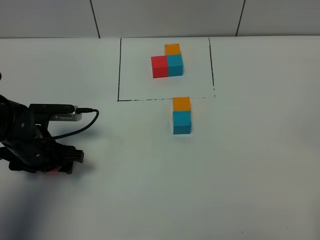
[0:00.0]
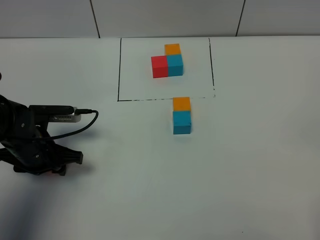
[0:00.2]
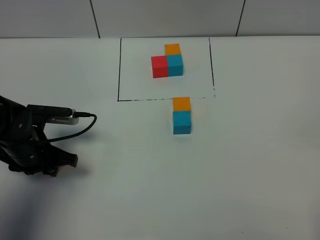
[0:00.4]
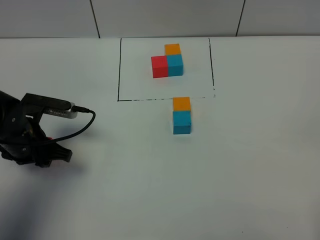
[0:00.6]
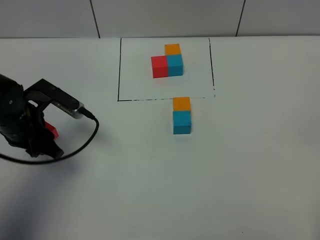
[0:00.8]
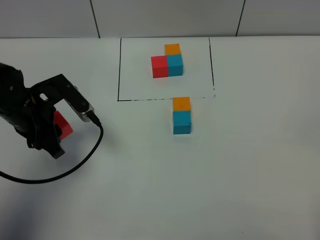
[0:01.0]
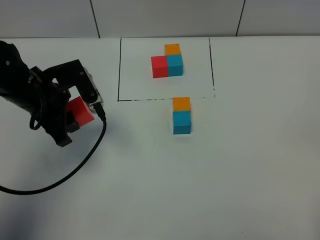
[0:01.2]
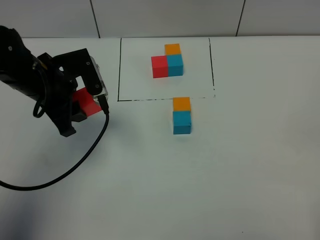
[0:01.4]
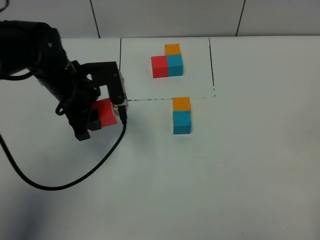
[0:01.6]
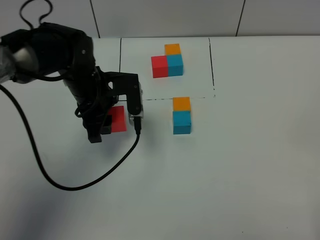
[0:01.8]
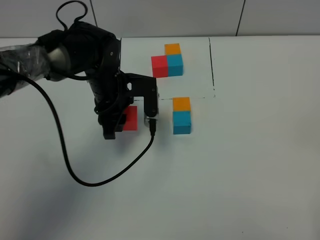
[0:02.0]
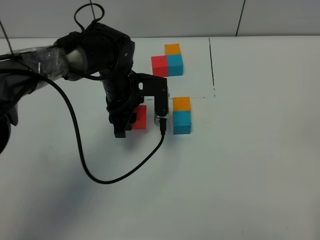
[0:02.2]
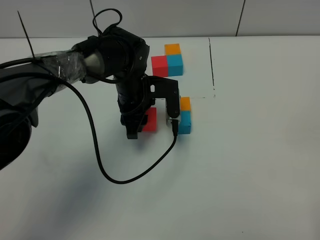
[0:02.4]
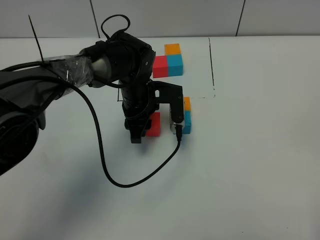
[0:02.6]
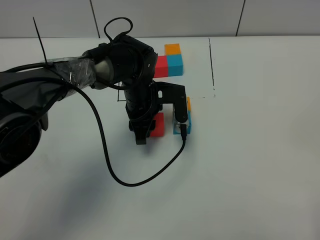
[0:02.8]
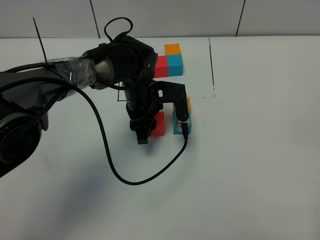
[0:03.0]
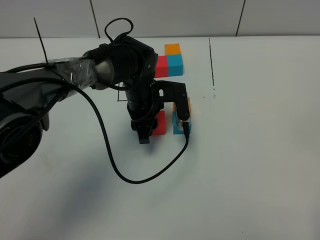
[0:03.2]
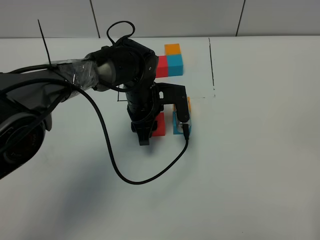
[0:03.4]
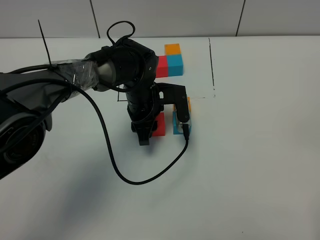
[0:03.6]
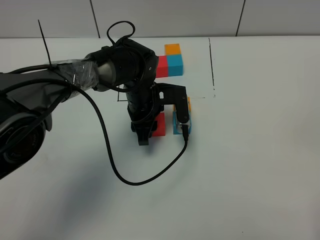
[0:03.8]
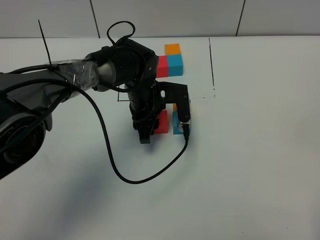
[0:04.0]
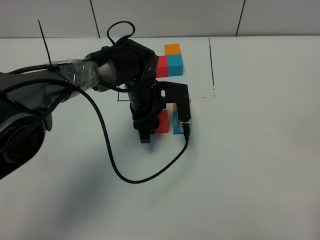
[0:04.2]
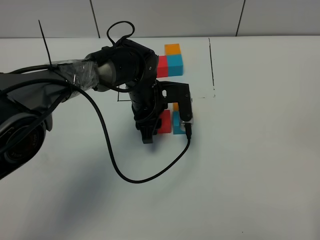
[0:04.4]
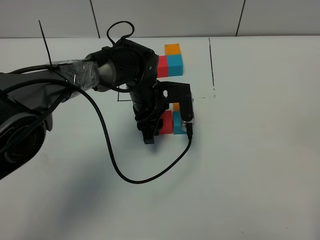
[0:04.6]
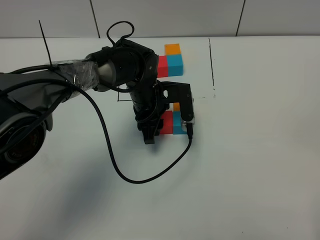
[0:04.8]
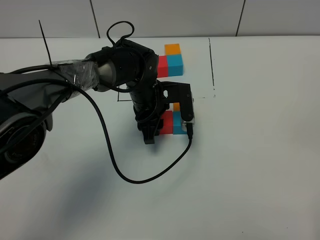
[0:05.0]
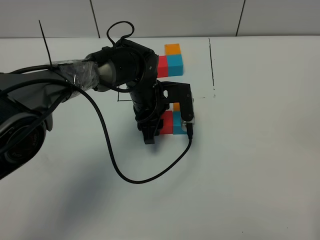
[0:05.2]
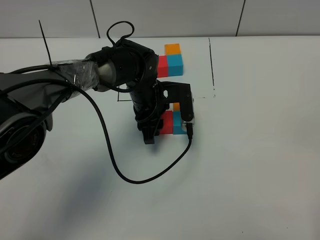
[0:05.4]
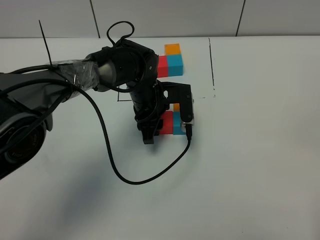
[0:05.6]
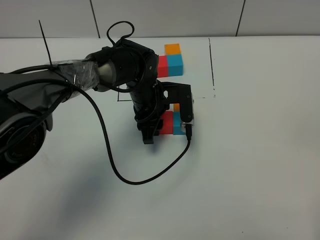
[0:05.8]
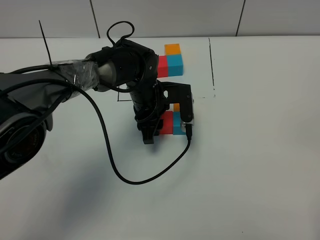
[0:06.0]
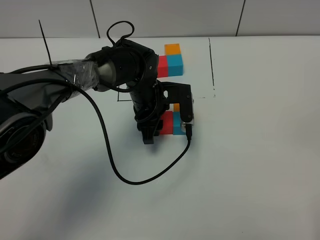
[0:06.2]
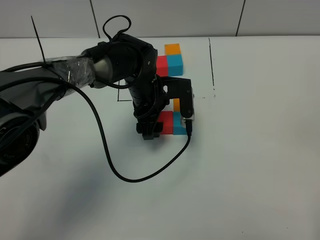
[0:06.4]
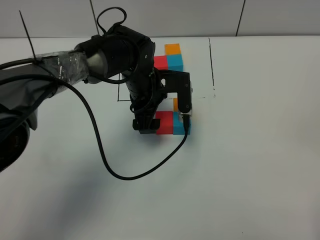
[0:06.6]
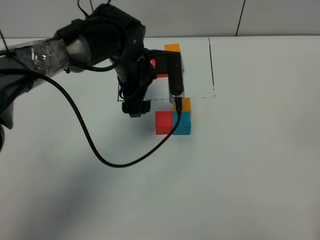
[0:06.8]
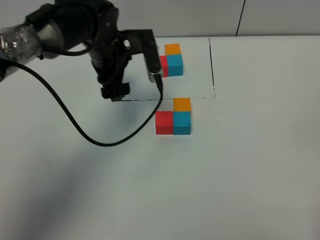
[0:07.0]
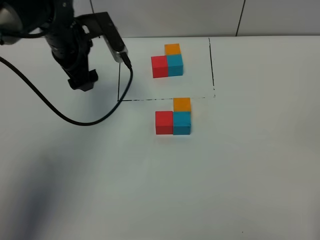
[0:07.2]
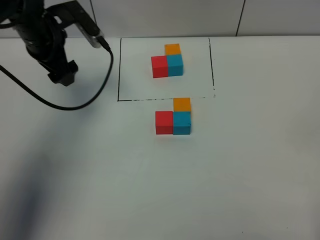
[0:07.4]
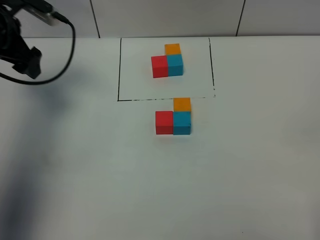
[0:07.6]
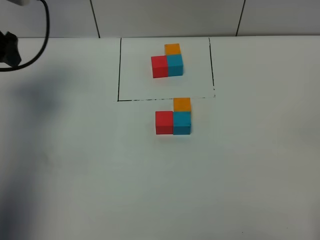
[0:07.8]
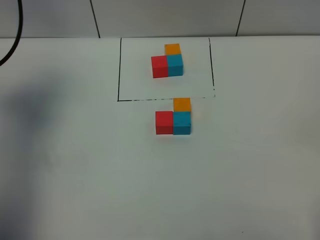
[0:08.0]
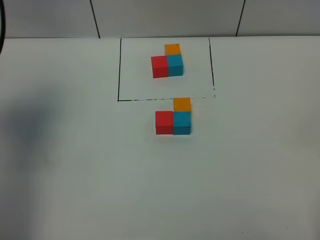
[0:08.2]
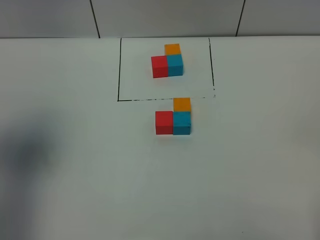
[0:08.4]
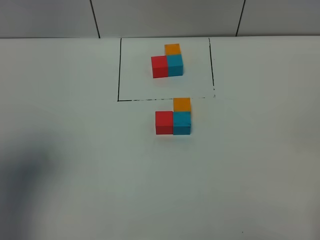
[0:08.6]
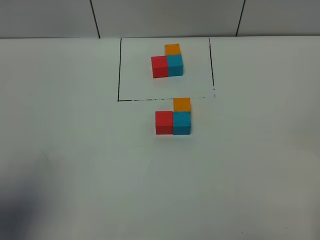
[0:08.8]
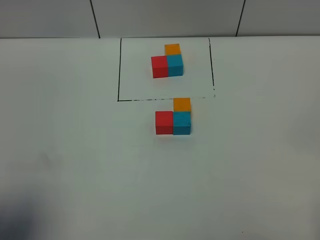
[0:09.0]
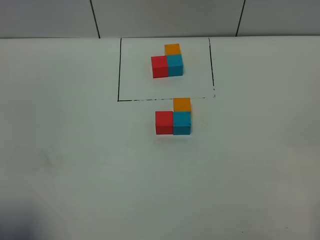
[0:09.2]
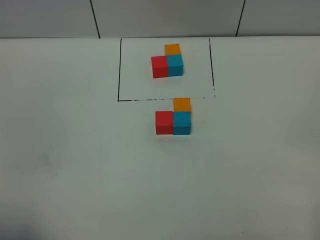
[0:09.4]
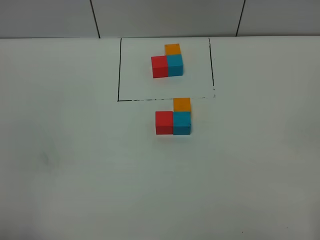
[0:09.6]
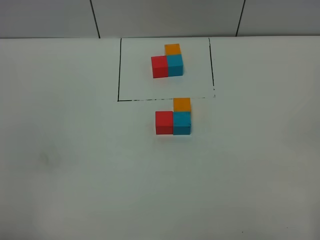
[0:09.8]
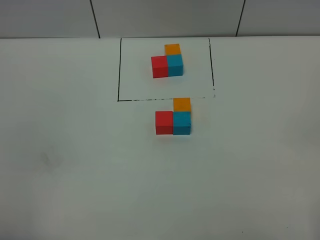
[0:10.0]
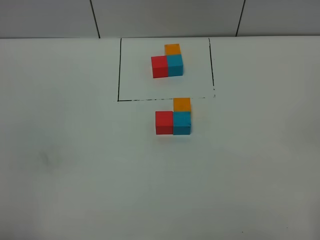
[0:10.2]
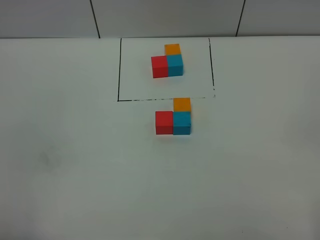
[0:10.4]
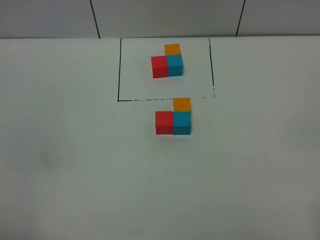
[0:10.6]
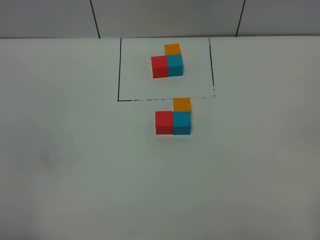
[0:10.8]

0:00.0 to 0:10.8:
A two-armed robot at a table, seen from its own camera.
Task of the whole recording: According to the building block template in front, assemble the scattered blocks together.
Step, 0:00.0 to 0:06.2: Put the red build block on the left of the blue build block.
0:00.0 to 0:01.6: The left gripper goes about 15 cm to the right, forward and upward, and closes up.
0:01.6 to 0:03.0: The left gripper moves to the right and downward, roughly 15 cm.
0:03.0 to 0:04.6: Both grippers stay put.
0:04.6 to 0:06.2: Both grippers stay about where they are.
0:06.2 to 0:07.8: The left gripper travels to the left and upward by approximately 35 cm, and opens its fingers.
0:07.8 to 0:09.2: The left gripper travels backward by roughly 35 cm.
0:09.2 to 0:10.8: The left gripper changes place by roughly 5 cm.

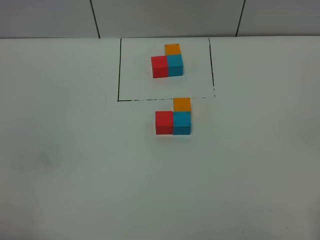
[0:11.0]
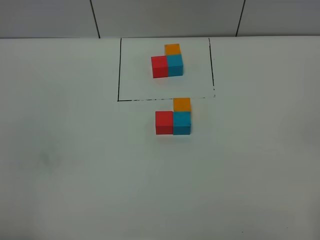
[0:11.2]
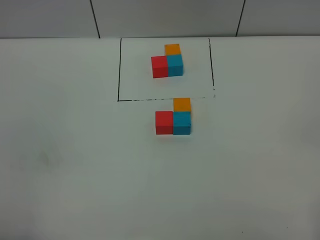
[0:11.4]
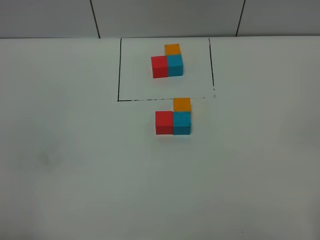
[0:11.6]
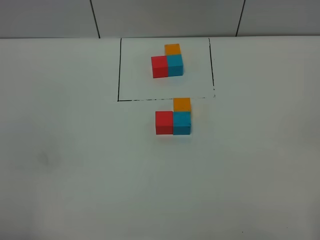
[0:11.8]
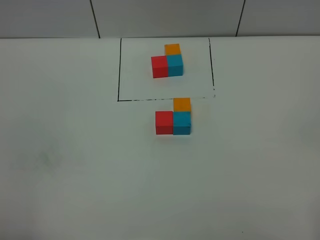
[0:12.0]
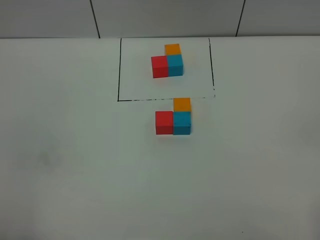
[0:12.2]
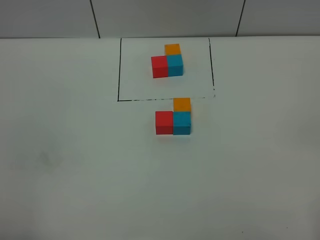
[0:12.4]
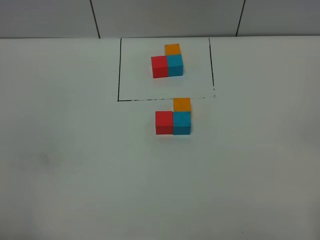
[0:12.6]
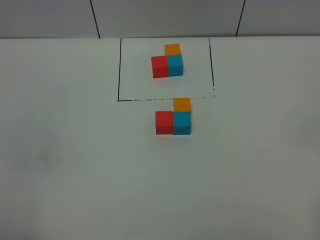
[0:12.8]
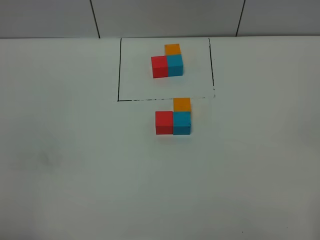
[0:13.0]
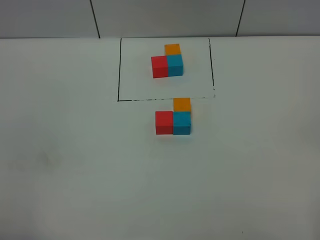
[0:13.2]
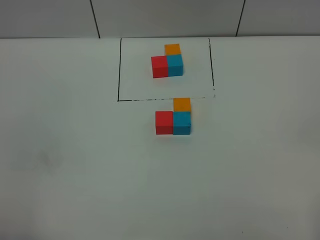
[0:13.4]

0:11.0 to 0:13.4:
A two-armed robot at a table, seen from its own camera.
Task of the whole recording: According to the building block template in front, assemble the scattered blocks together.
0:11.0 to 0:13.4: Neither gripper changes place.

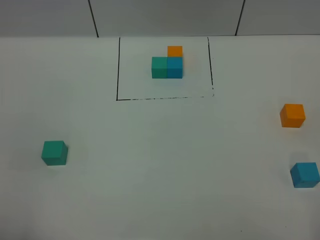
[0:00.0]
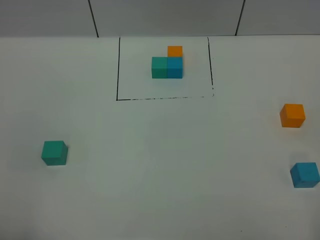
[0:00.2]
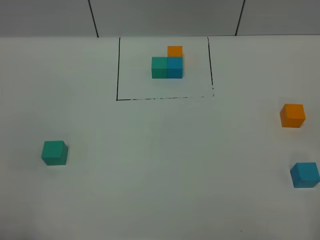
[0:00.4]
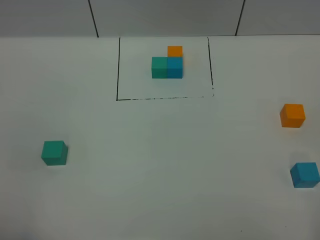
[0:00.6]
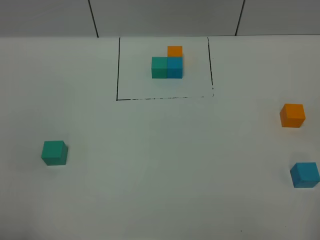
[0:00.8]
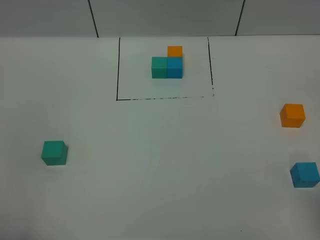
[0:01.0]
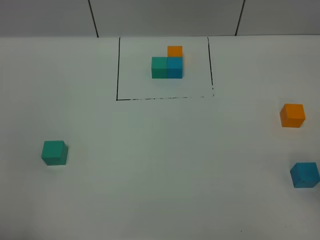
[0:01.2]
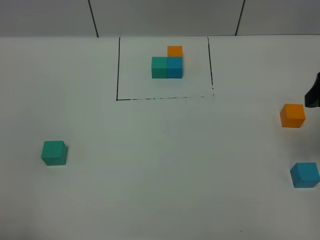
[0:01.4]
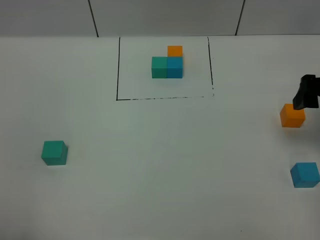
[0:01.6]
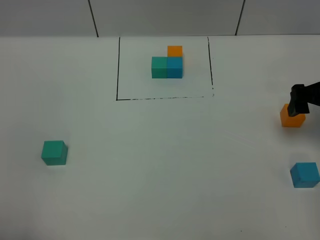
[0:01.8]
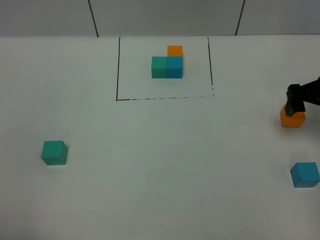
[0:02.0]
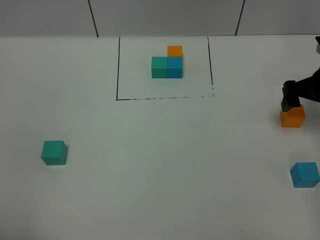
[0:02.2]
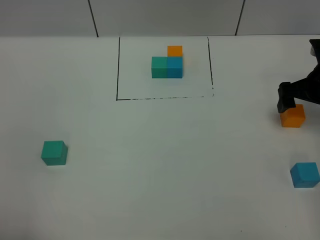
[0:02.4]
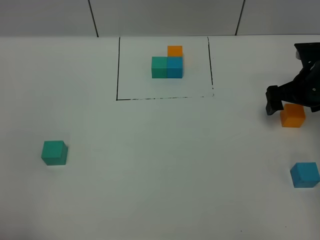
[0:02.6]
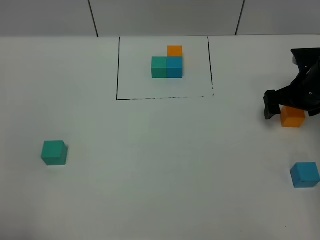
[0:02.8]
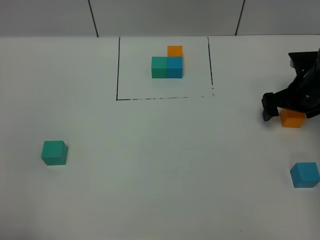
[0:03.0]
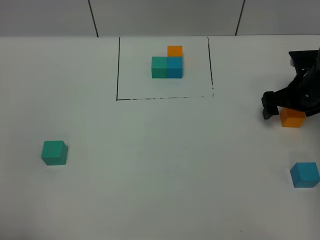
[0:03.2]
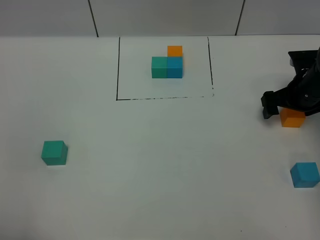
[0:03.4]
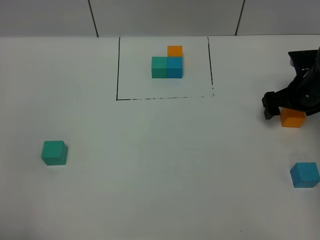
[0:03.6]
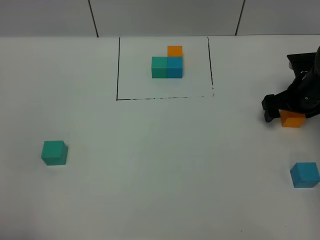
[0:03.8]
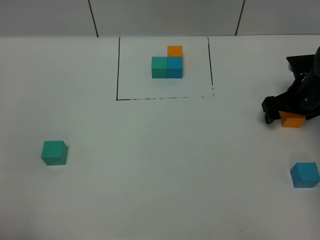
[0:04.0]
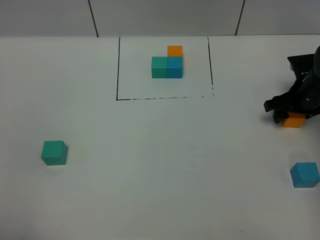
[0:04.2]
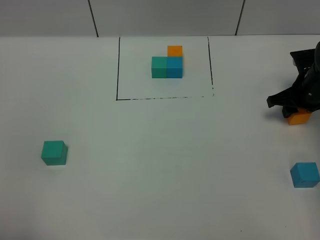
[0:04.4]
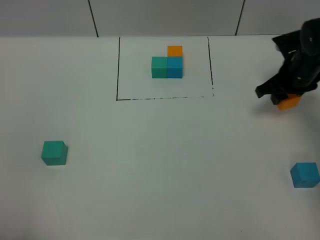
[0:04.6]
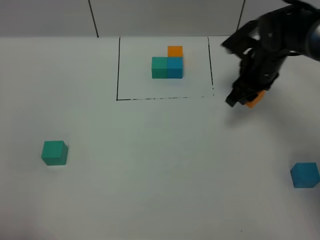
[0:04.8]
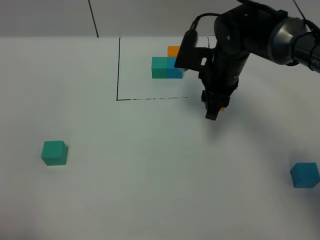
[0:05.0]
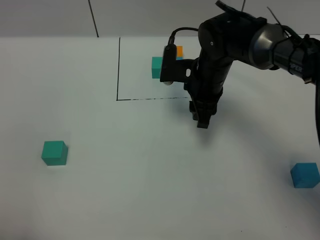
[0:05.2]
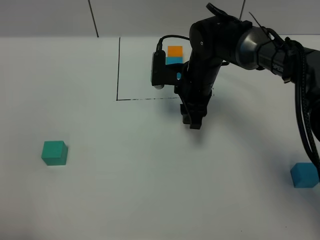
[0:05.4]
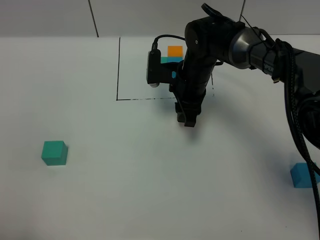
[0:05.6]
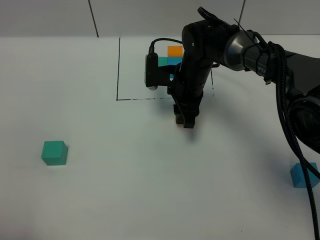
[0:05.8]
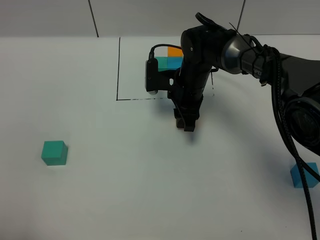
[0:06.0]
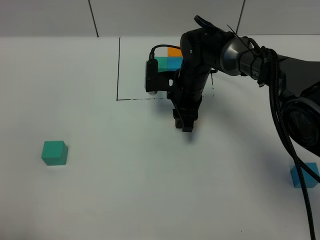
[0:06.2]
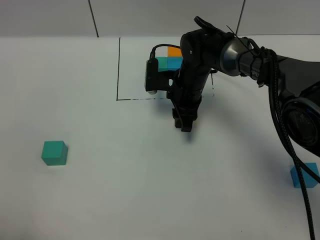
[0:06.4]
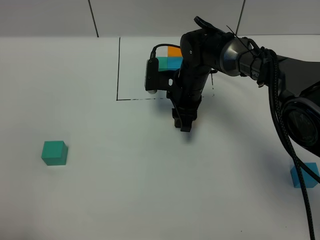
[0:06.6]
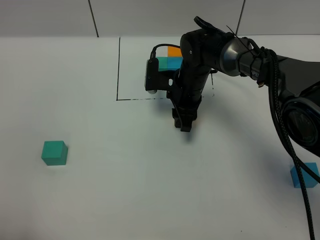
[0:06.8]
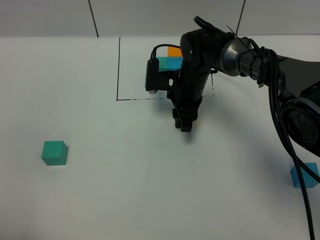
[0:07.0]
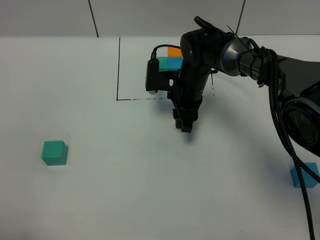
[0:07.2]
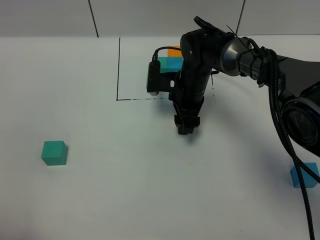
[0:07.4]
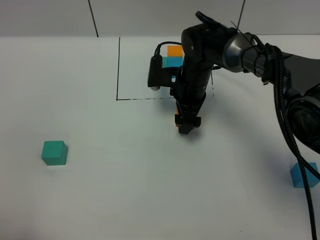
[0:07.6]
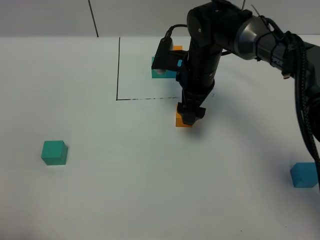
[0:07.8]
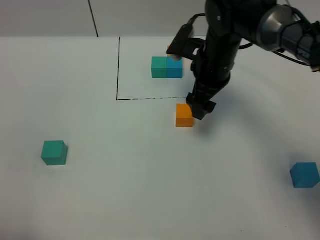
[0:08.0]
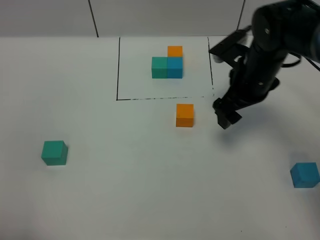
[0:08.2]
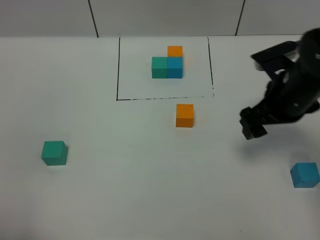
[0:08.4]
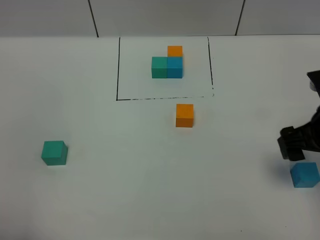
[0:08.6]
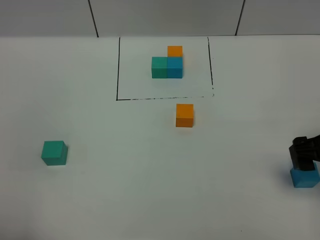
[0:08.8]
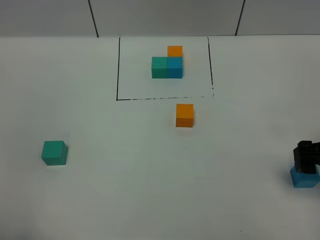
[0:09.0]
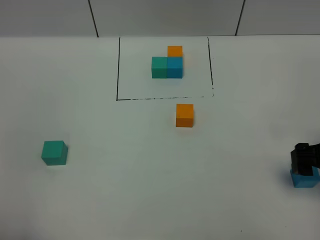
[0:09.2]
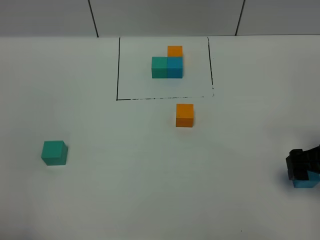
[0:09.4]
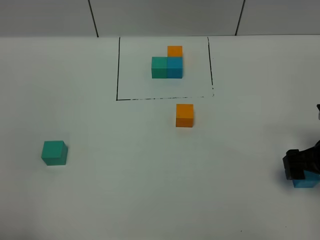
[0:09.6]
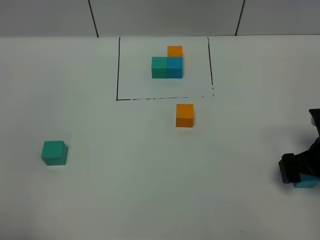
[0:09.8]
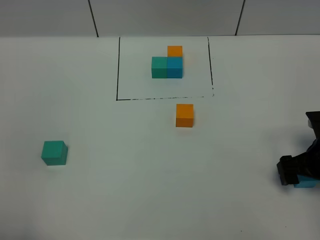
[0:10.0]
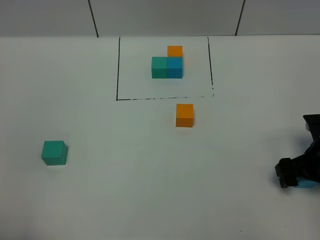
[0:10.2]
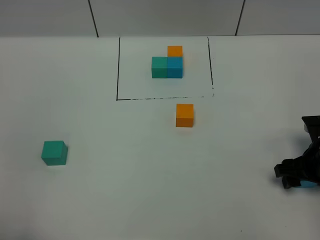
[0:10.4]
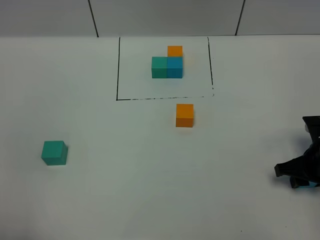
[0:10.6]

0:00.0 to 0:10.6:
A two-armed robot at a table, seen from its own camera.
Task of the whole recording: According to the building block template in front, assemble the scattered blocks together.
Step, 0:00.0 to 0:07.6: Put the orange build block in the center of the table.
0:00.0 to 0:01.6: The right gripper heads forward, covering some 30 cm.
0:01.6 to 0:03.0: The right gripper travels downward and forward by roughly 15 cm.
0:03.0 to 0:04.6: The right gripper changes place by about 5 cm, and closes its fingers.
0:04.6 to 0:06.0: The right gripper shifts about 20 cm to the left.
0:06.0 to 0:07.6: The right gripper opens its fingers.
0:07.6 to 0:09.0: The right gripper goes roughly 30 cm to the right and backward.
0:09.0 to 0:10.6: The right gripper moves downward, approximately 10 cm, and closes up.
